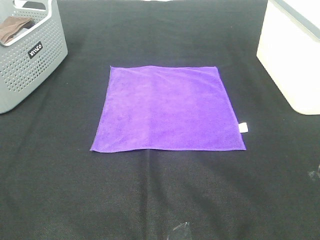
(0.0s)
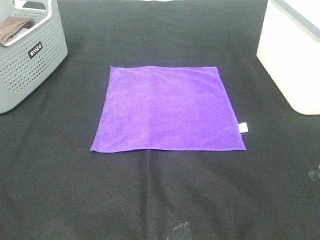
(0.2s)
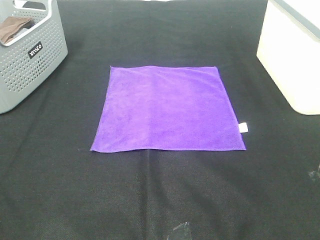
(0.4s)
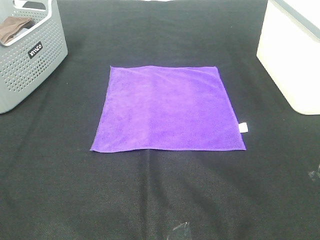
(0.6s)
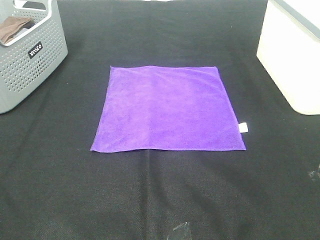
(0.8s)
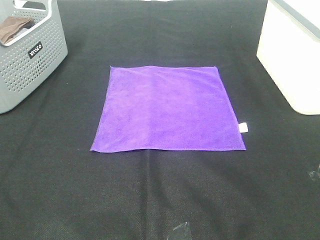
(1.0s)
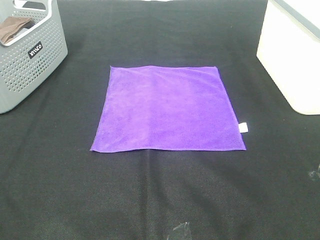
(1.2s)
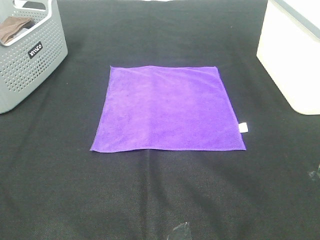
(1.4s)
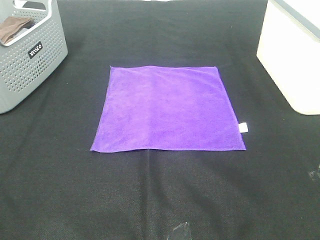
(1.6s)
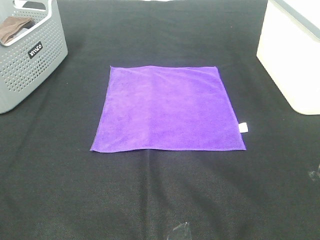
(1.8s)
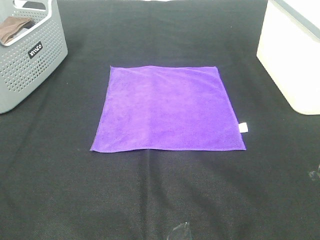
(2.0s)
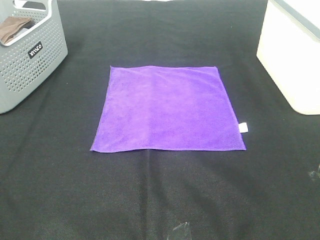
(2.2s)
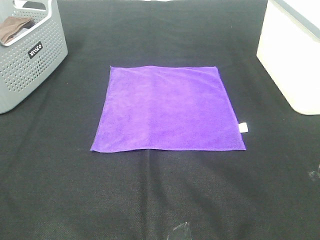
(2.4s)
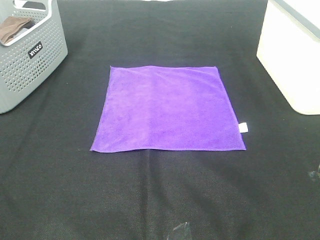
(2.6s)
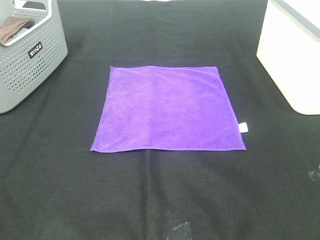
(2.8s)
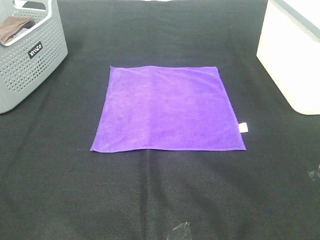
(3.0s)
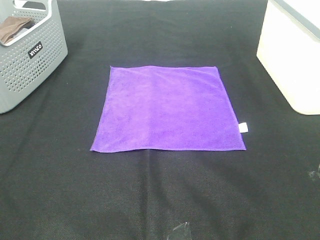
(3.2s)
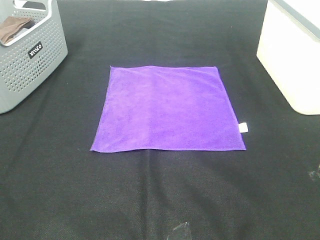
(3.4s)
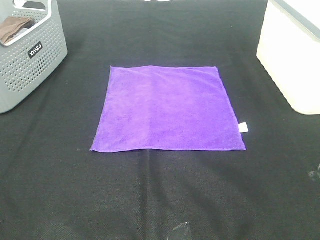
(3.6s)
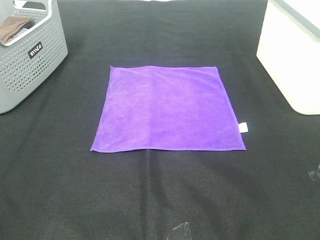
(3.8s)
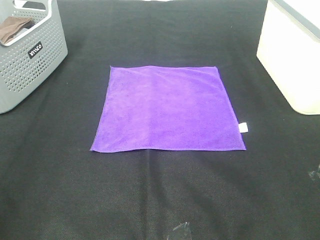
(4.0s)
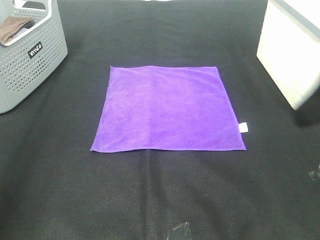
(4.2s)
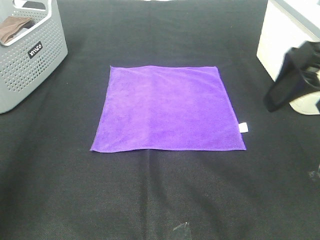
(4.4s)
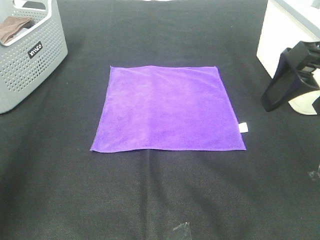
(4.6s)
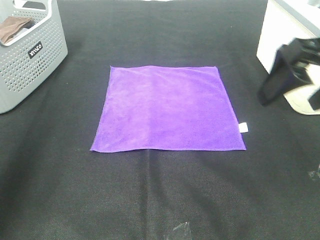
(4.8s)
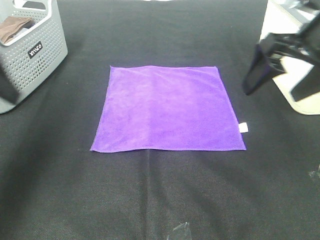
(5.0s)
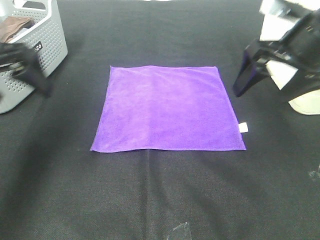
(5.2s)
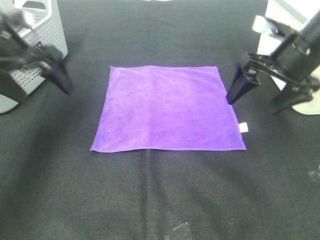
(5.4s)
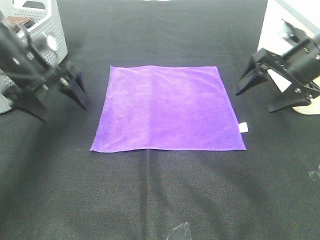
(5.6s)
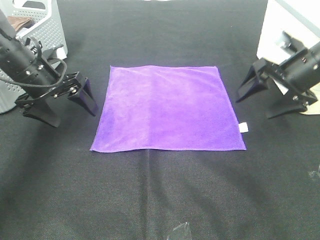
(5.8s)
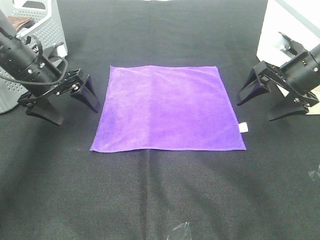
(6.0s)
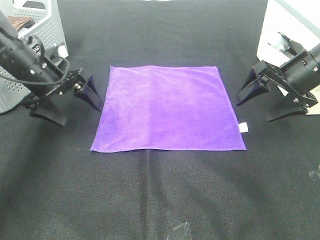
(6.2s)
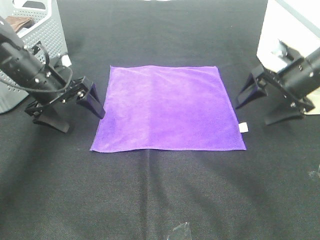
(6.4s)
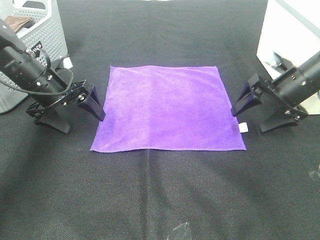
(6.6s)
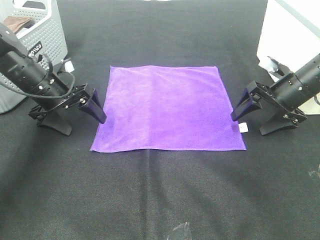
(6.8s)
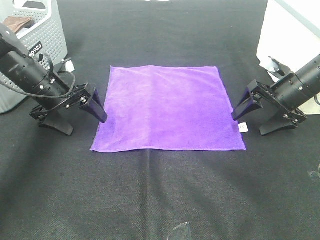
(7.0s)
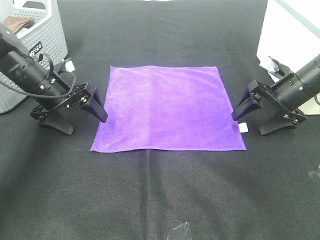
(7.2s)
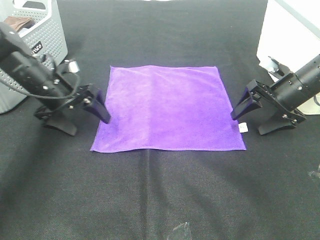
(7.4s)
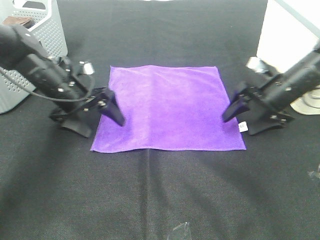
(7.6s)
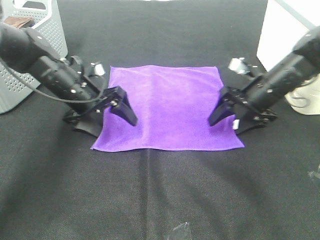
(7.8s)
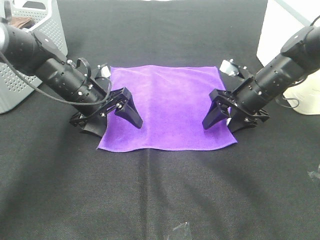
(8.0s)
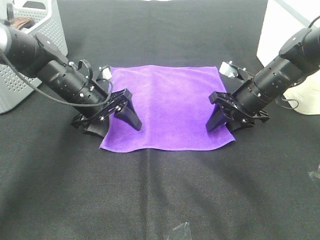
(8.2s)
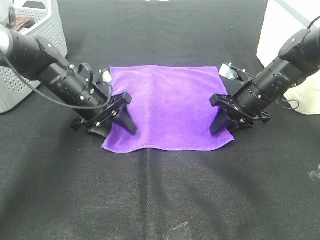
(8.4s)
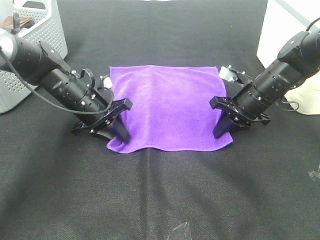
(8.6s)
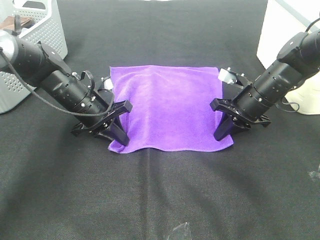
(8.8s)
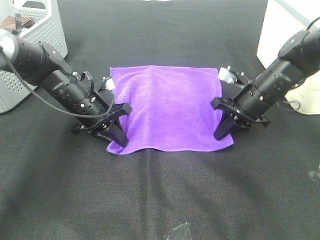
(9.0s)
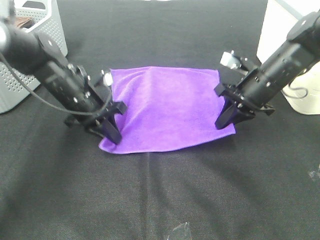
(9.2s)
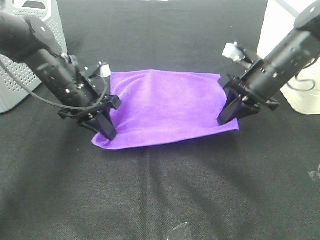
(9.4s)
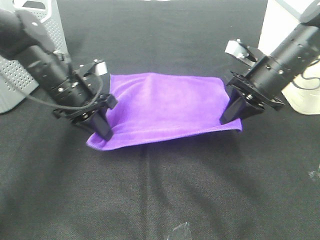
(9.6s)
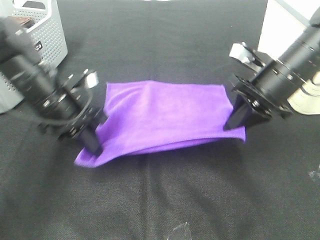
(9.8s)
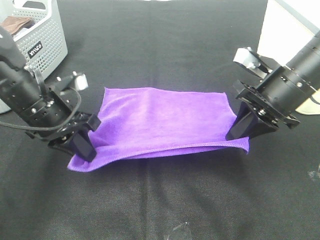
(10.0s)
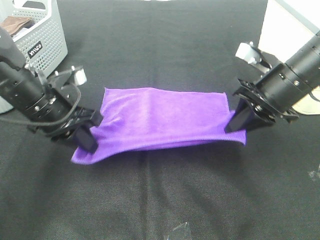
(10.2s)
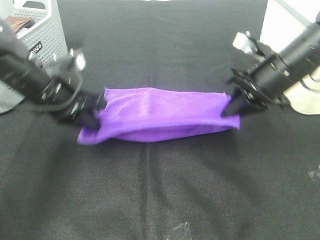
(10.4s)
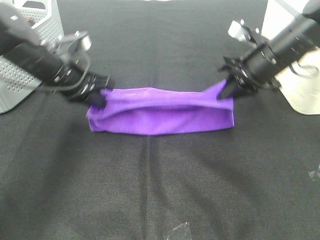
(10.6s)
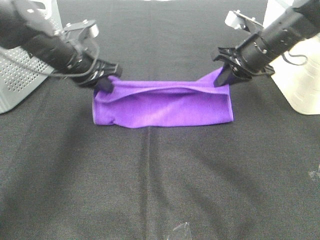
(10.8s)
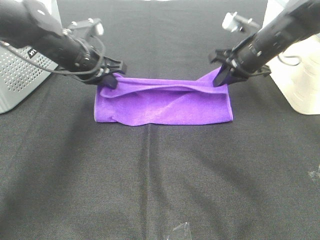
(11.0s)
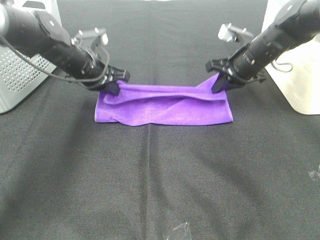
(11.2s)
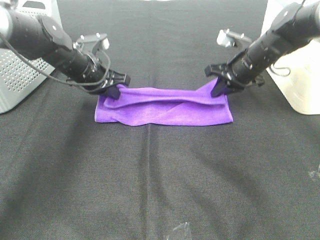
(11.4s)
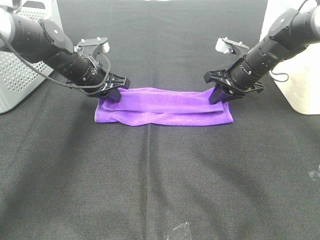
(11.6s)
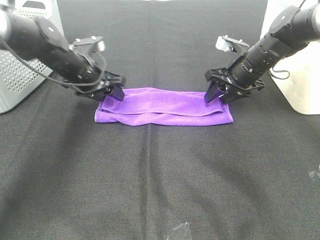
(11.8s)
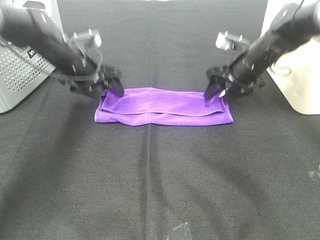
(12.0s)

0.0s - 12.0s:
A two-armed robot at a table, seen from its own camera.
Task of the whole recording: Fold towels.
Step, 0.0s - 8.6s: Left hand: grab the bottom left corner of purple towel.
Step, 0.0s - 8.6s: Right hand: grab the bottom right corner of purple towel.
Step, 8.8s - 11.4s: Left hand: fold the purple towel up.
Step, 8.8s - 11.4s: Right hand: fold the purple towel up.
0.0s - 3.0s: Neither gripper changes place.
3.0s - 4.4s: Both grippers travel together forward, approximately 20 cm.
4.4s - 6.0s: The right gripper heads forward and downward, covering some 20 cm. Meanwhile the left gripper goes roughly 30 cm forward and downward.
6.0s - 7.6s: Both grippers travel together downward, approximately 5 cm.
7.6s - 9.0s: The left gripper closes. The right gripper closes up.
9.0s - 10.4s: The two grippers go some 10 cm upward.
10.4s - 12.0s: The grippers both shift forward by some 10 cm. The right gripper opens; the left gripper opens up.

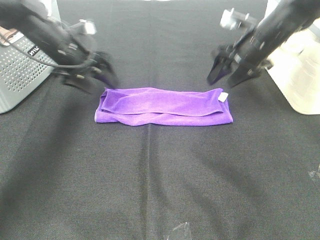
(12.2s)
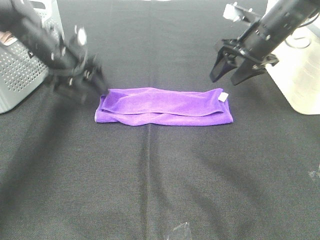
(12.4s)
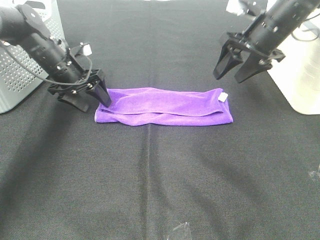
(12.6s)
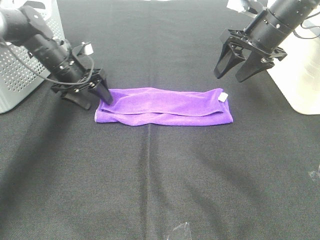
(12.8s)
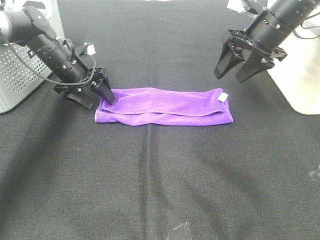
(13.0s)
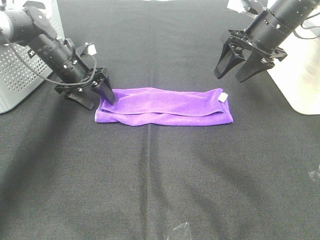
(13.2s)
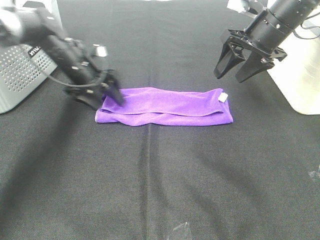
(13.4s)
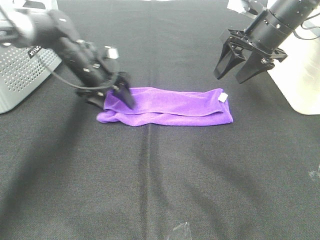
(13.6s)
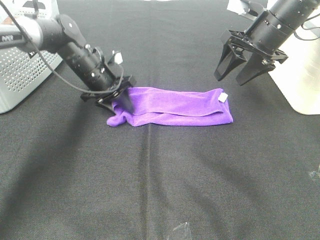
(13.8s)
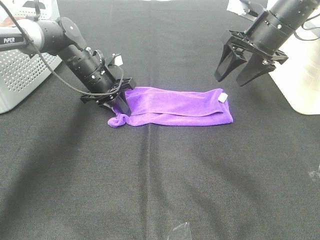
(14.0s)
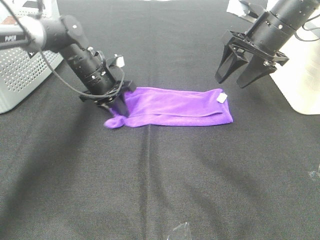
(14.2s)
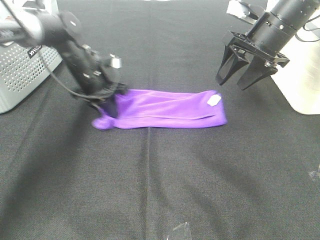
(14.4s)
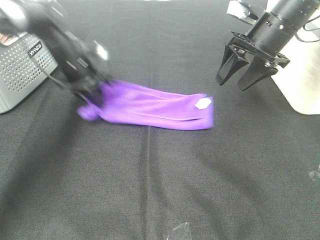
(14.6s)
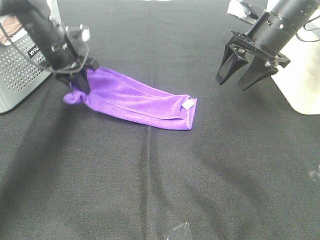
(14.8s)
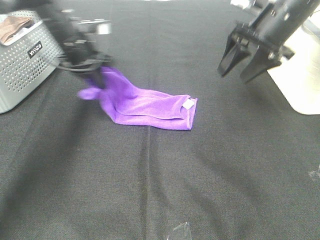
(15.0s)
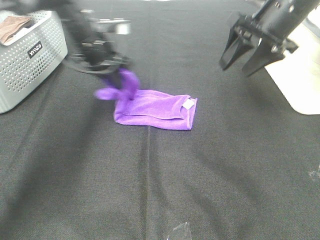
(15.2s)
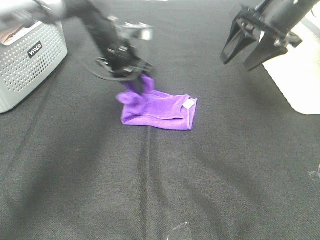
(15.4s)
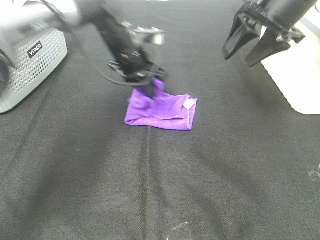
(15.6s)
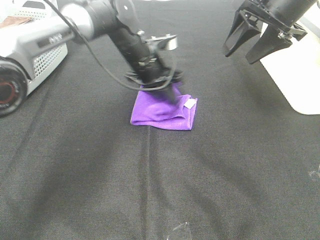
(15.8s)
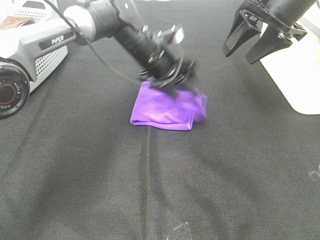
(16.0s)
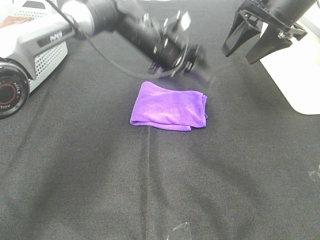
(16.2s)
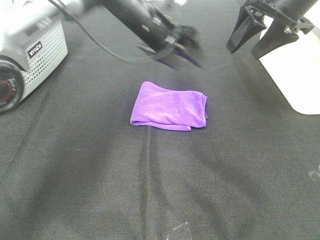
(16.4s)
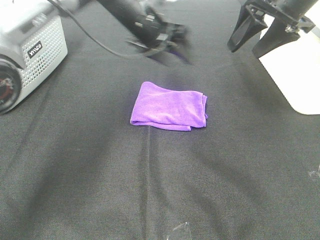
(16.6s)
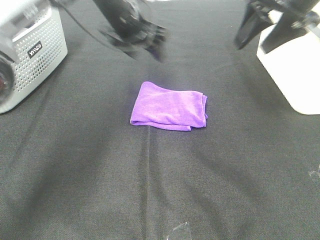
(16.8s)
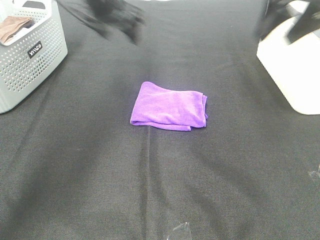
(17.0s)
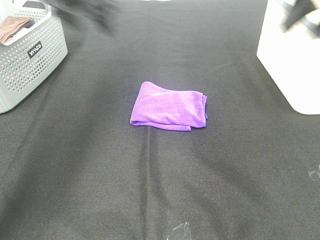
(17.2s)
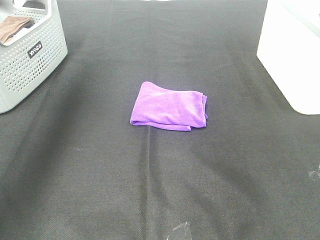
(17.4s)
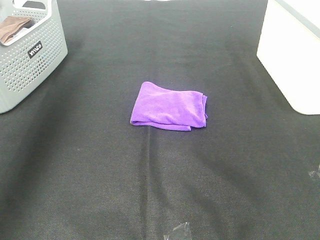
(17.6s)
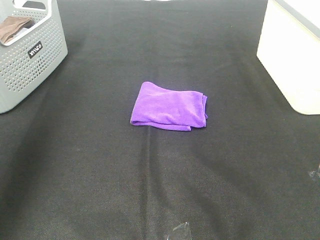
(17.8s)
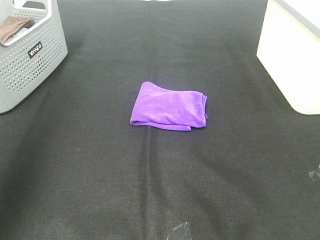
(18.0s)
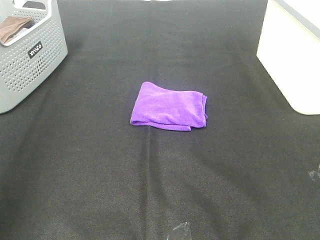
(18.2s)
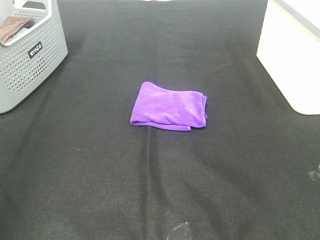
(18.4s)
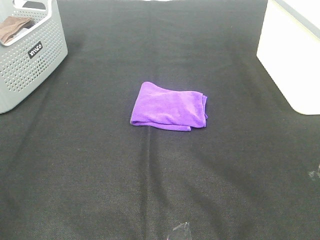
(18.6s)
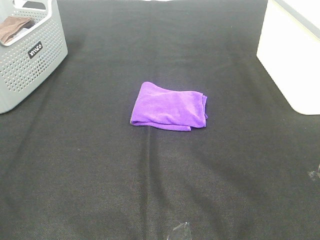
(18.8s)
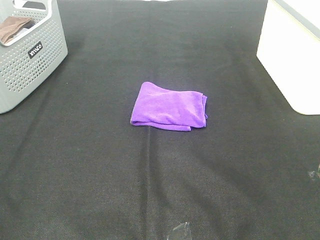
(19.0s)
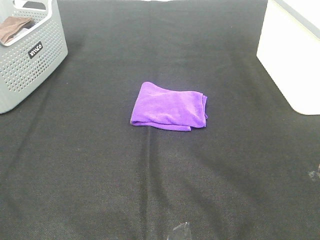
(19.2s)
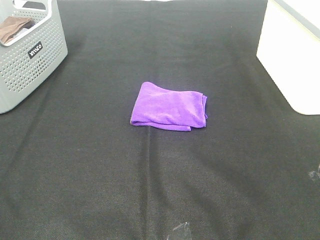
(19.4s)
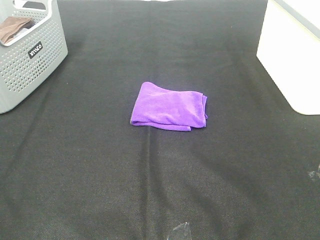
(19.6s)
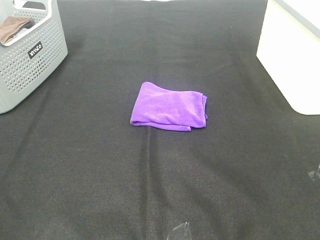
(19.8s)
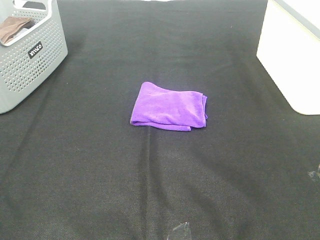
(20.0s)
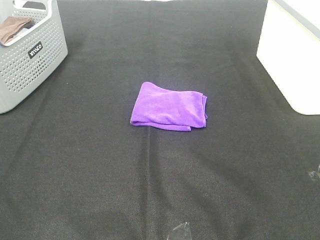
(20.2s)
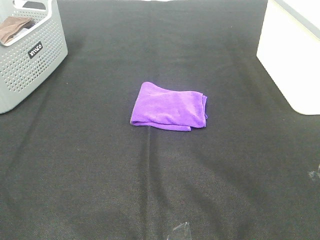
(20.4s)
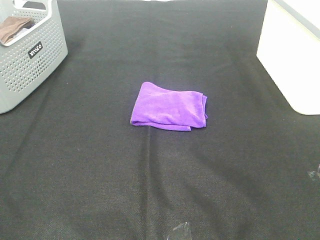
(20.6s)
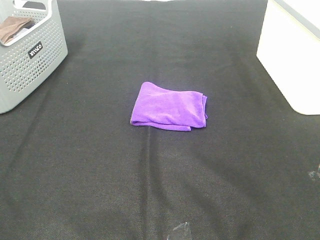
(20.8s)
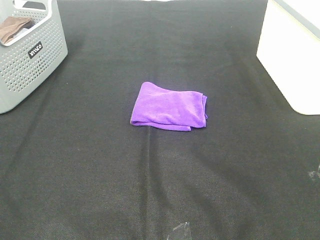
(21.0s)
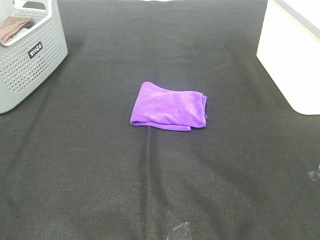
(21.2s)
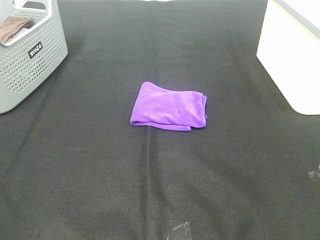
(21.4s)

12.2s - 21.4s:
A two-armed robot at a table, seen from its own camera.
Task of the whole recording: Fold towels.
Step, 12.2s - 15.6s: Left hand: fold the purple towel from left to right.
12.2s - 13.8s: The left gripper travels downward and to the right by about 10 cm, and closes its fingers.
13.8s - 15.2s: The left gripper is displaced upward by approximately 10 cm, and reaches some 5 cm to the left, then returns.
15.2s - 16.8s: The two grippers go some 5 cm upward. The left gripper goes to the right and returns, some 10 cm each way, and opens.
16.8s - 18.4s: The right gripper heads backward, covering roughly 30 cm, while the left gripper moves backward and to the left, approximately 50 cm.
19.8s - 21.4s: Neither gripper changes place.

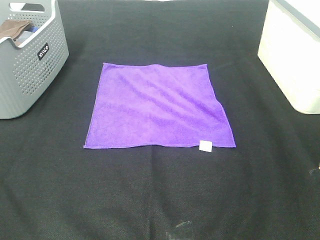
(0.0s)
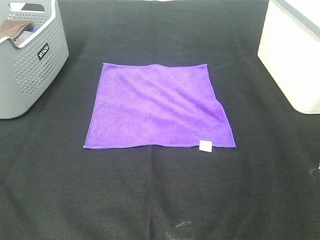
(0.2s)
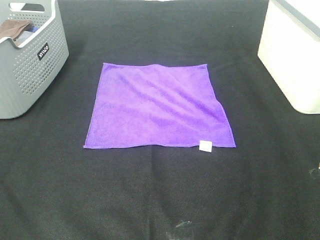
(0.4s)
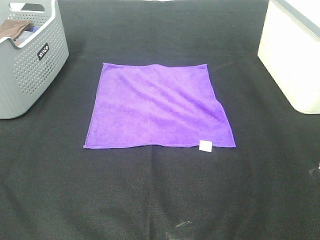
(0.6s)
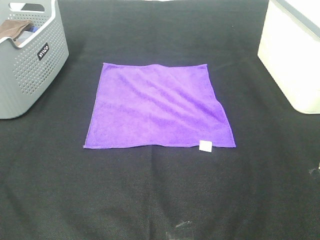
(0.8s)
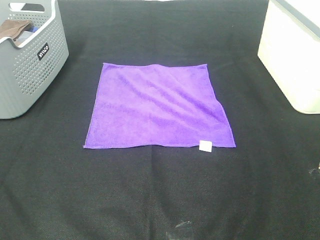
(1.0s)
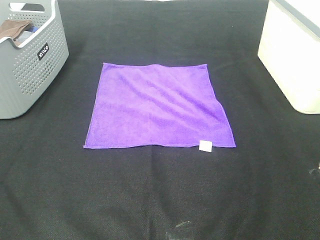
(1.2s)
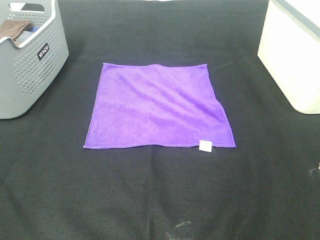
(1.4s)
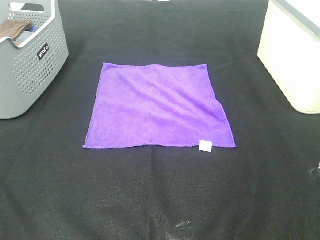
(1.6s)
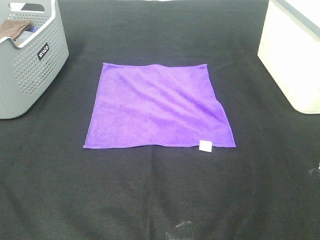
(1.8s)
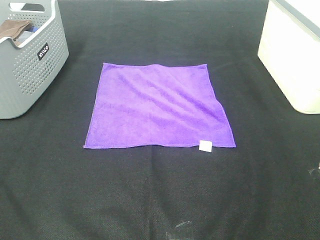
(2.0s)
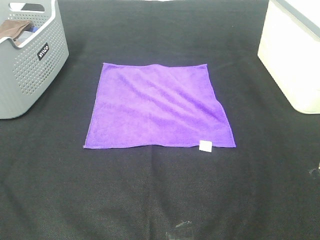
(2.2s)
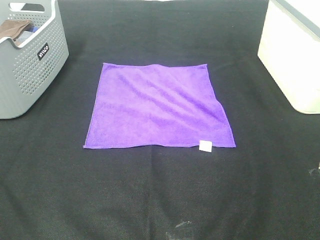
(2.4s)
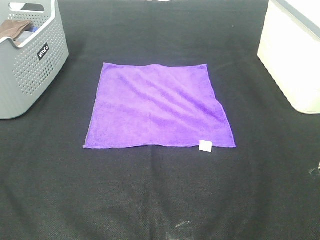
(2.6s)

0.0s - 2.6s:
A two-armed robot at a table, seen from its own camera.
Task of the whole recording: Fold towels.
0.0s - 2.6s: Both grippers stay about where they are.
